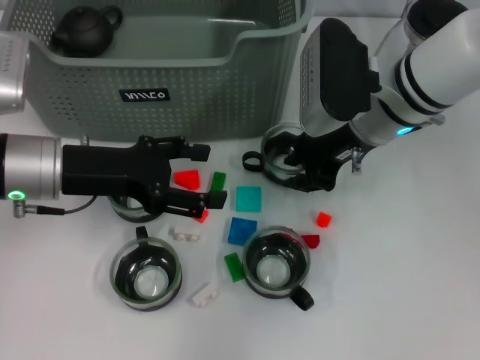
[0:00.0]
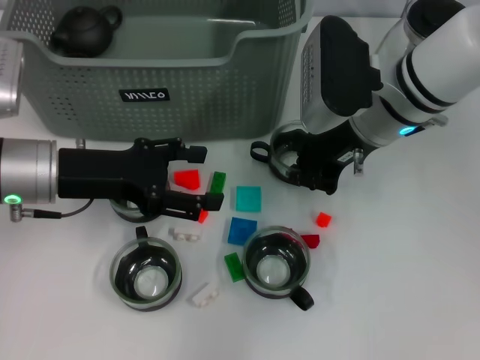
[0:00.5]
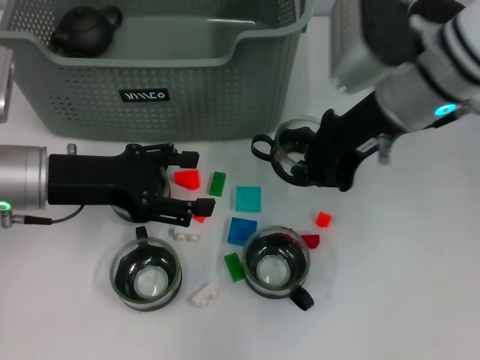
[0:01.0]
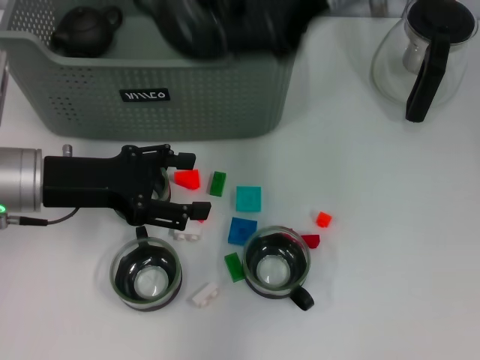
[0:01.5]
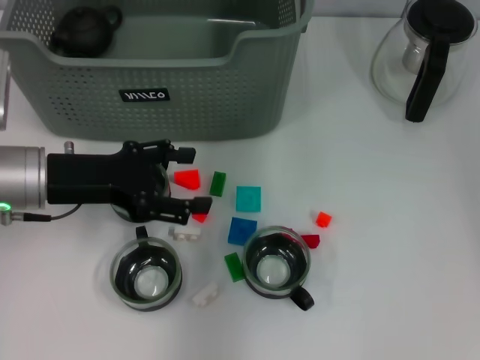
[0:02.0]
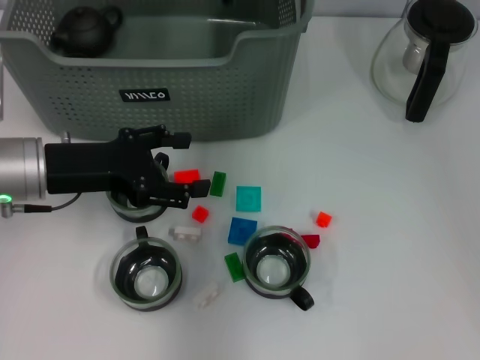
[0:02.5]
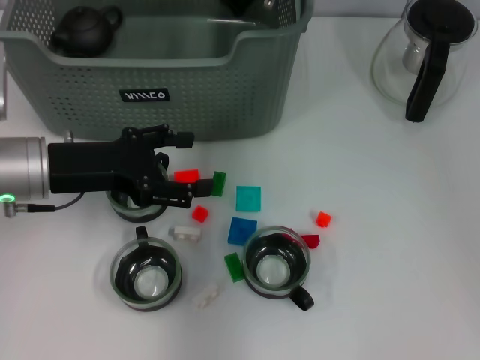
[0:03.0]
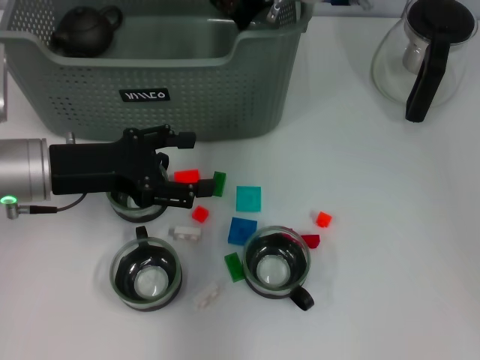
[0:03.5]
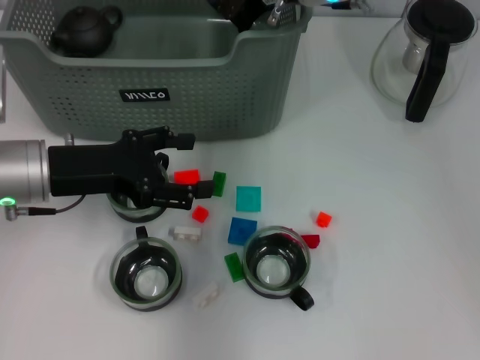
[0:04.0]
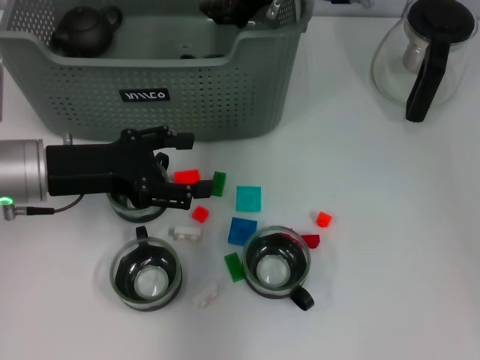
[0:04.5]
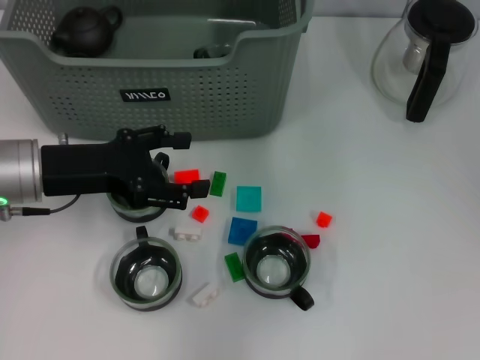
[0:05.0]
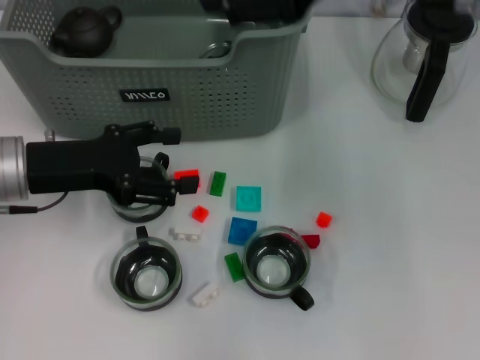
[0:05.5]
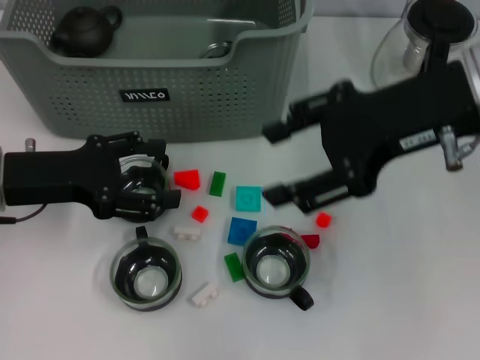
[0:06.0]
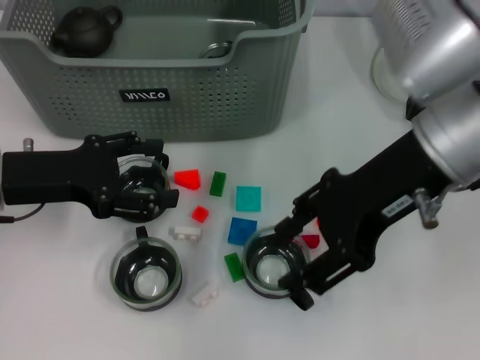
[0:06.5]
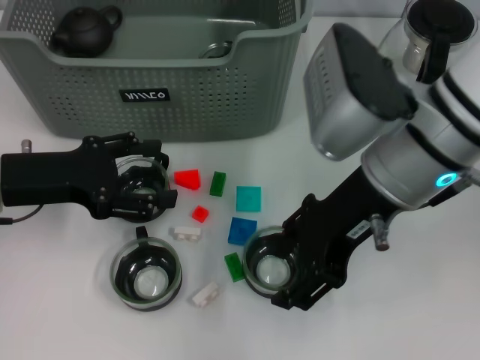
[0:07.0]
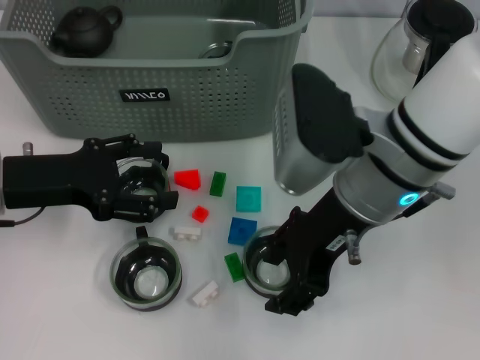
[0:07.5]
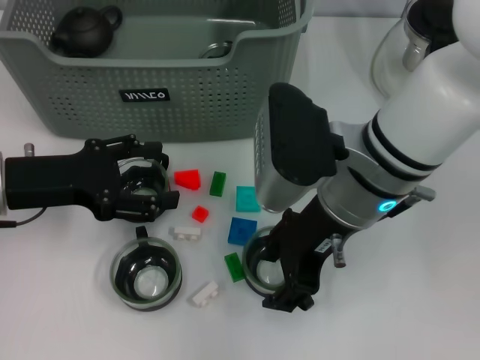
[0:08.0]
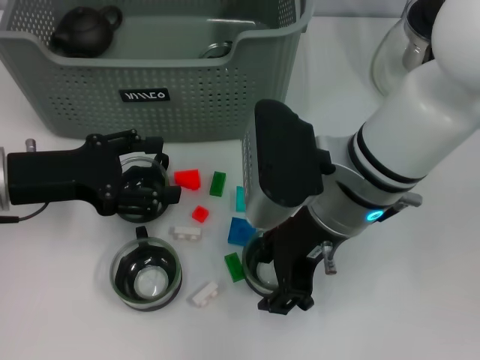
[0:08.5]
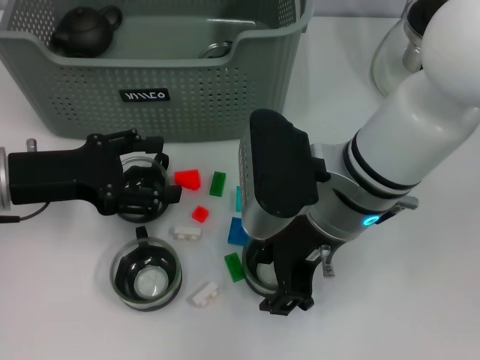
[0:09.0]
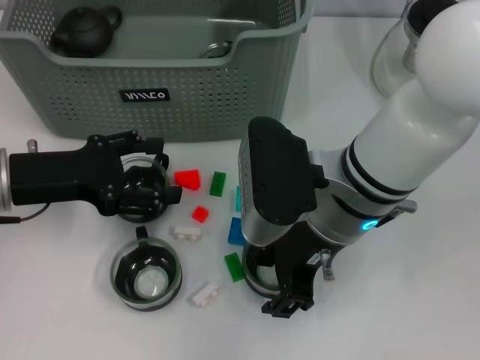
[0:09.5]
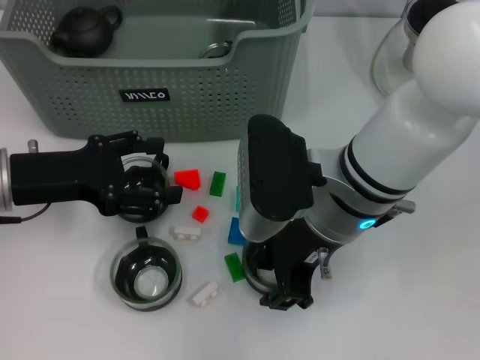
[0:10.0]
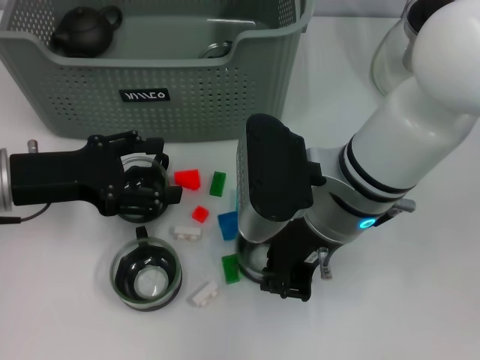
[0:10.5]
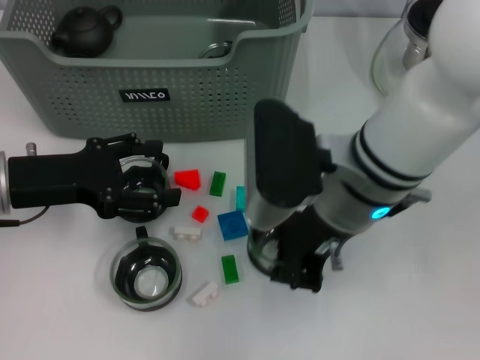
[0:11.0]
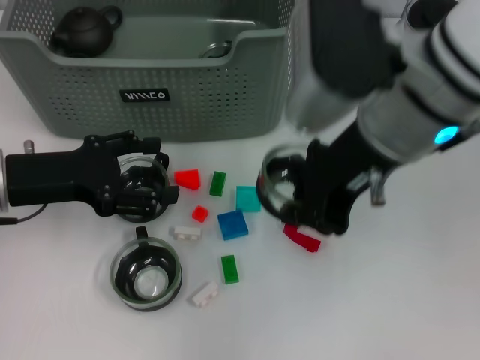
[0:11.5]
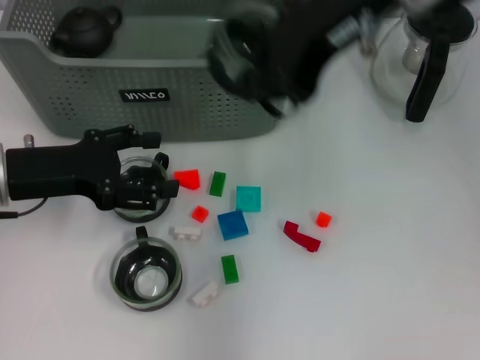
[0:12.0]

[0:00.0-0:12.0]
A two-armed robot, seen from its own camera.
Task of the whole recording: pick up the teacup on the table and place it into the storage bin, pick up the block on the table and place it into the storage bin.
Step, 0.5 to 5.0 s: Place the cup in the storage box with right gripper.
Step, 5.5 to 10.5 s: Grasp the cup with right gripper.
0.0 to 2.0 s: The right gripper goes some 15 cm upward, and closes up.
2.0 to 4.0 s: The right gripper travels downward by approximately 10 cm.
4.0 to 6.0 s: The right gripper heads backward and to the right, covering some 20 cm, and opens up.
6.0 to 8.0 s: The right gripper shifts some 15 cm downward and to the left.
8.0 to 10.0 s: The grippers make only small movements.
10.0 to 12.0 s: The right gripper is displaced upward by roughly 20 cm, and closes.

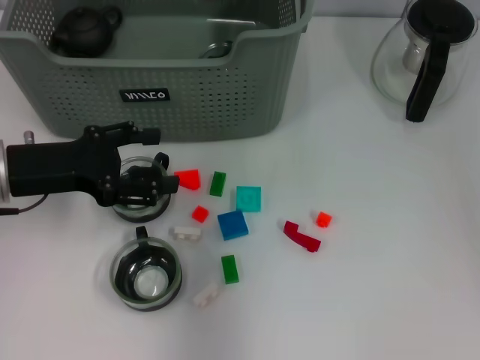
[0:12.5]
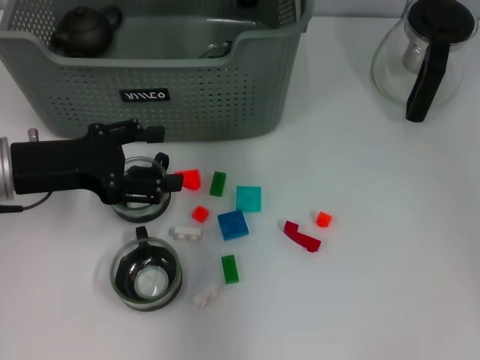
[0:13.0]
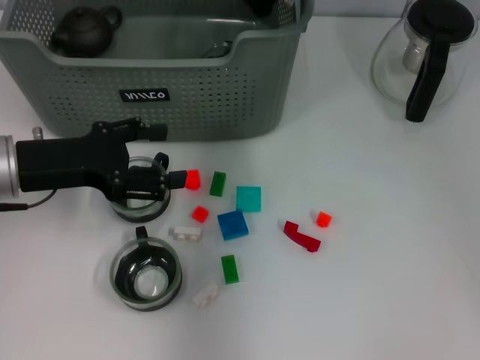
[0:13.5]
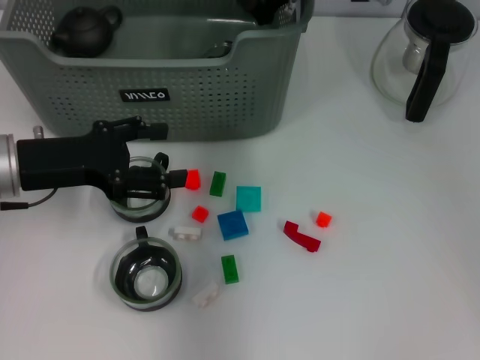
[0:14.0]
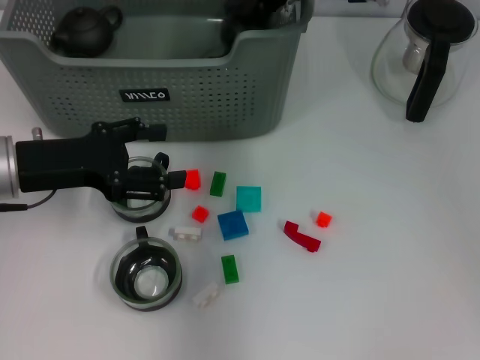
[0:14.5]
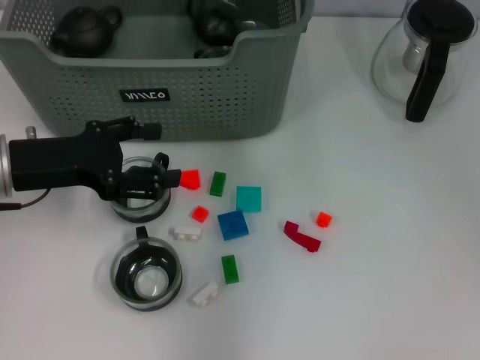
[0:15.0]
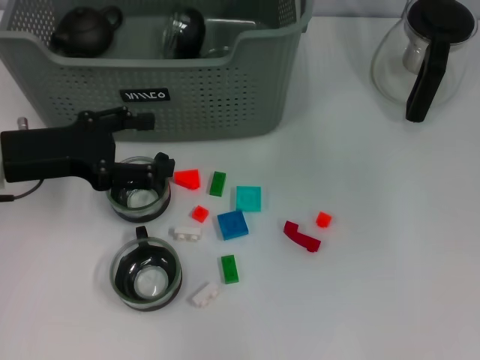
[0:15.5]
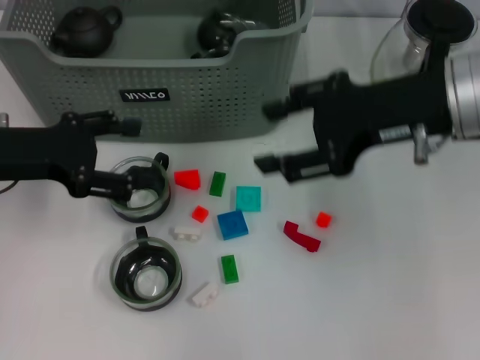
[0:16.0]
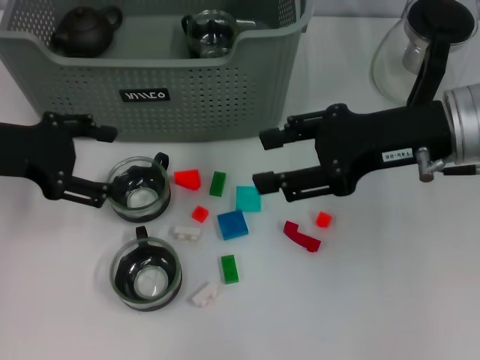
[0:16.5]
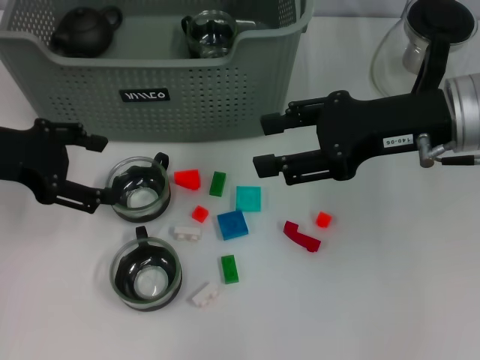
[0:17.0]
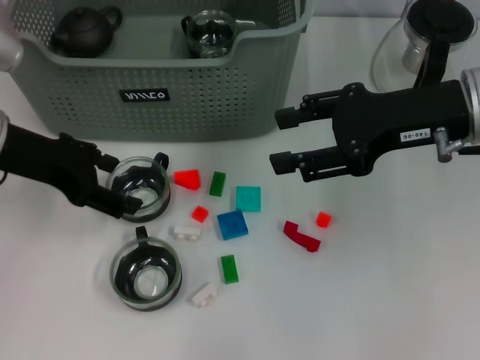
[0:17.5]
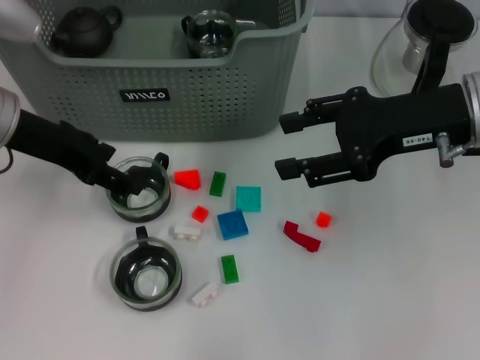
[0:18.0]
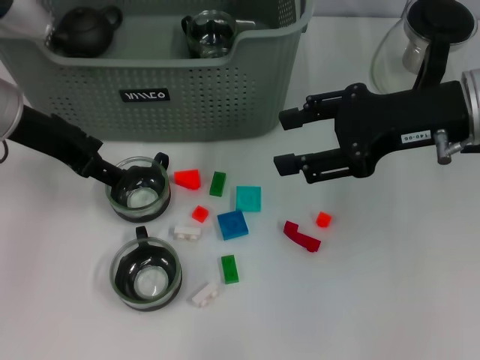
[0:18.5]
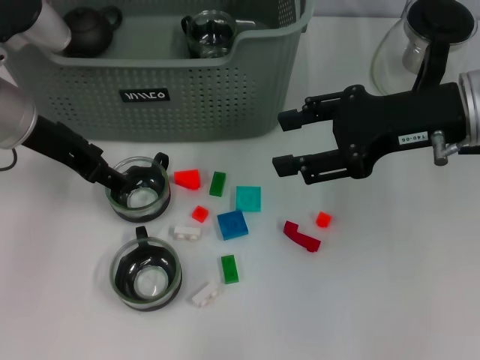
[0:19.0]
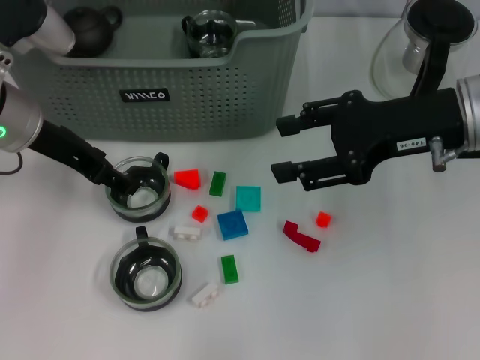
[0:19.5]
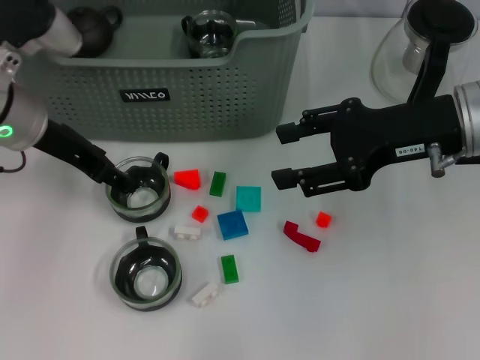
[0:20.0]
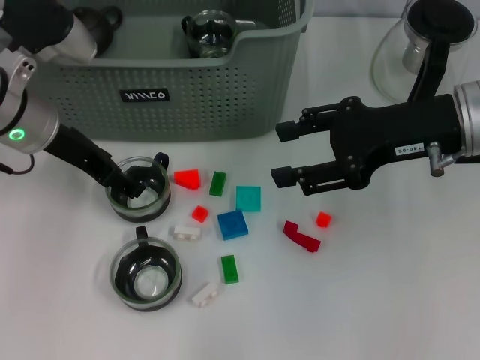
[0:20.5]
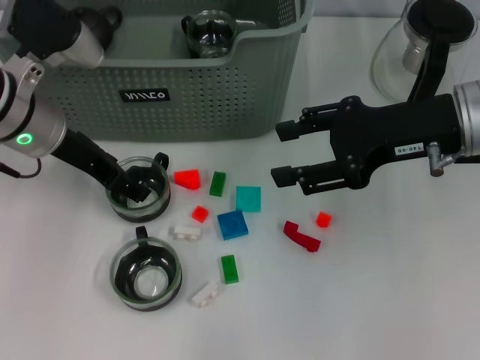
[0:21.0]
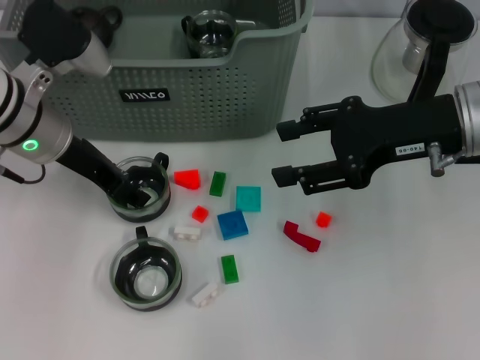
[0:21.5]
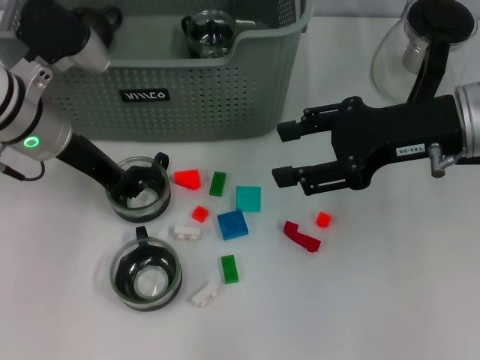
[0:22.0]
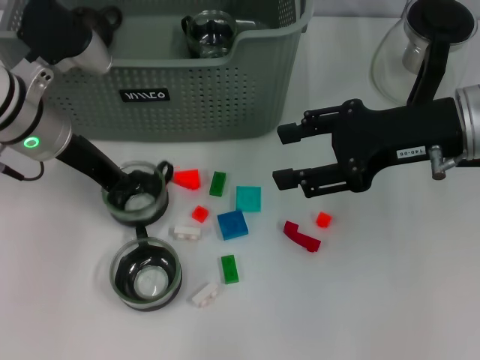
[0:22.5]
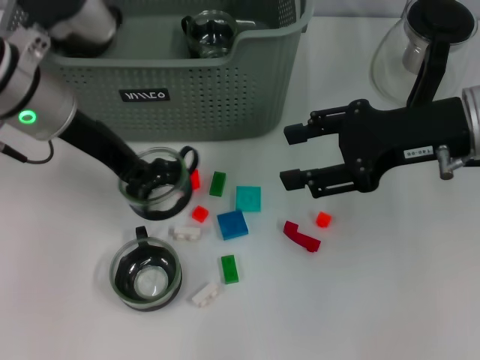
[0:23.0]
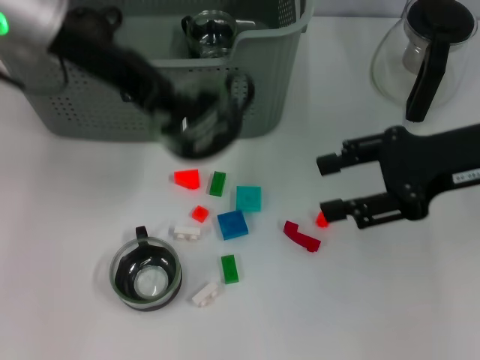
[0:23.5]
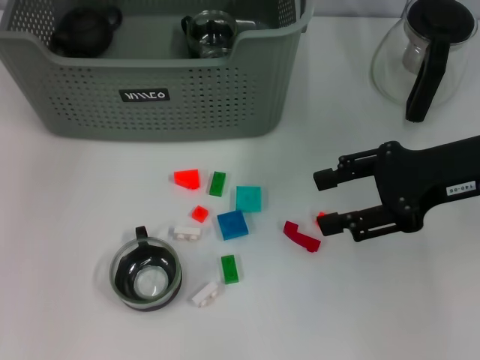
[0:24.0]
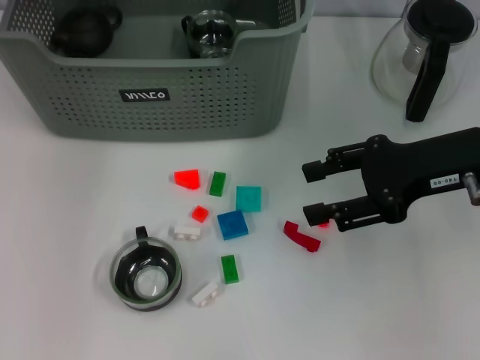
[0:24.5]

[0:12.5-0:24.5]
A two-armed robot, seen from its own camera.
Task of the whole recording: pick up the teacup on the table and place it into the storage bin, pick up the block on the table and place it into the storage bin.
Step, 12.5 to 15.0 s: Place the cup in the storage box with right gripper.
Step, 15.5 to 22.5 s: Grasp the cup with left gripper.
12.5 to 14.5 s: The right gripper shifts about 15 cm downward and forward.
14.5 to 16.5 s: The left gripper changes place by roughly 5 cm. Meanwhile the right gripper goes some 20 cm backward and to the right, and opens.
16.5 to 18.5 s: The left gripper heads to the right, covering approximately 5 cm.
18.5 to 20.5 s: The grippers make only small movements.
20.5 to 22.5 s: The left gripper closes.
22.5 to 24.5 s: The left gripper heads forward and upward, covering roughly 20 cm.

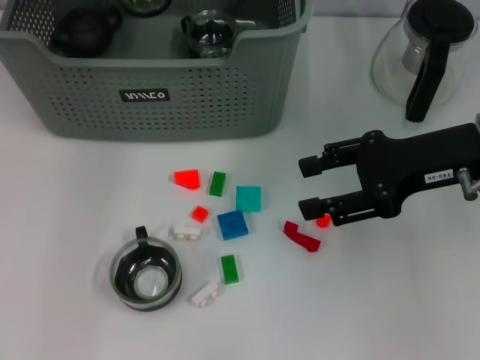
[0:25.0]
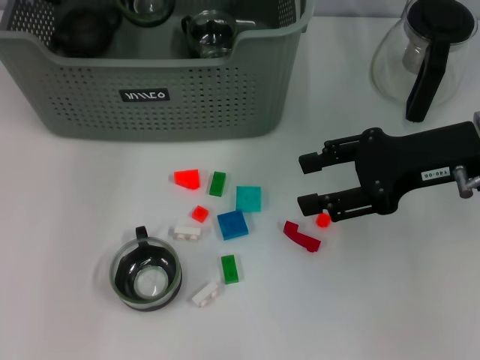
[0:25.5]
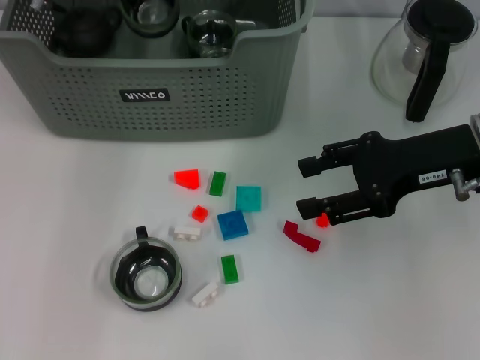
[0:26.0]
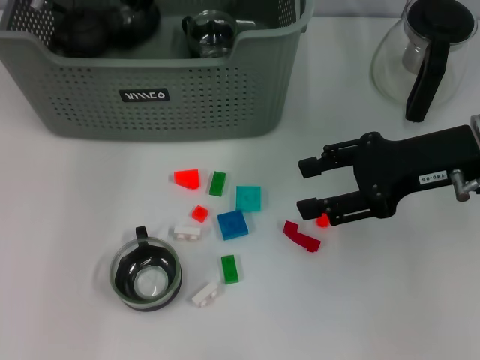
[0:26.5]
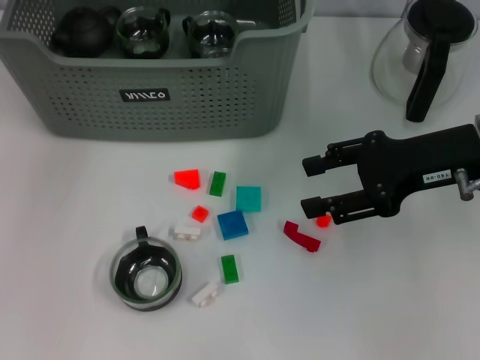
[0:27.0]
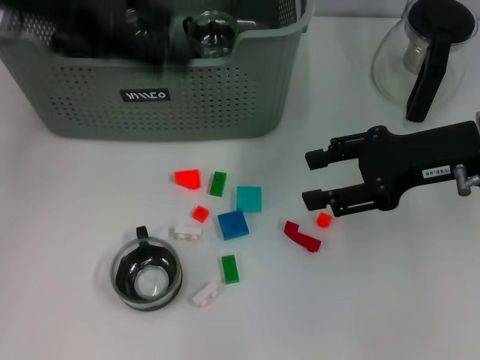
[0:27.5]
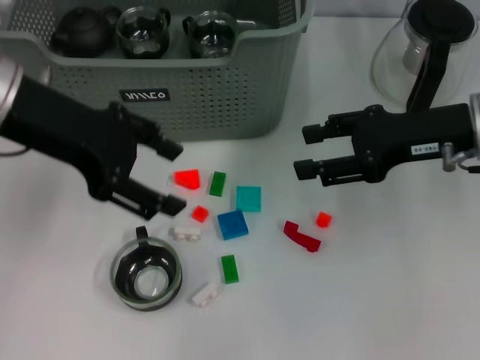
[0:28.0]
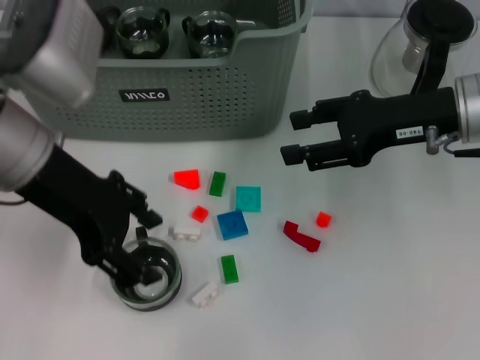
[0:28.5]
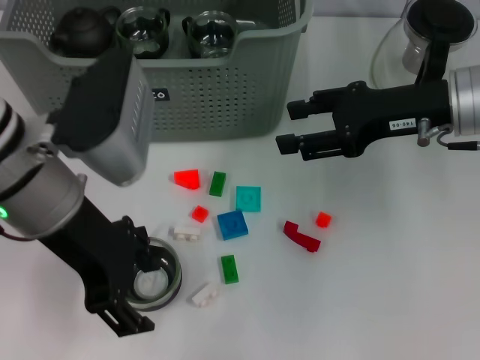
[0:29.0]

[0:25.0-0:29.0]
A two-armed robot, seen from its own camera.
Task of the whole recording: pick up the teacup on the table and place it into the storage bin, pick up the block on the table and place it into the storage bin.
Step, 25.0 to 27.0 s: Place the cup in the storage box with left gripper.
25.0 to 27.0 s: The left gripper is displaced upward by approximately 10 cm, and opens.
27.0 to 29.0 s: The left gripper moves backward and downward, roughly 20 cm.
